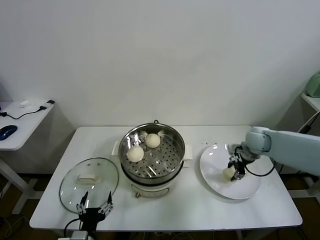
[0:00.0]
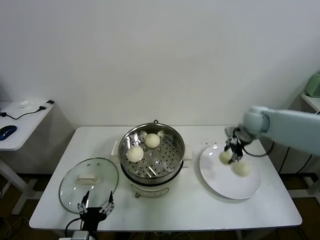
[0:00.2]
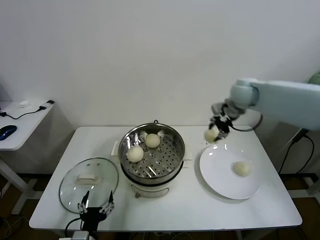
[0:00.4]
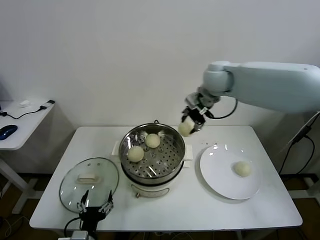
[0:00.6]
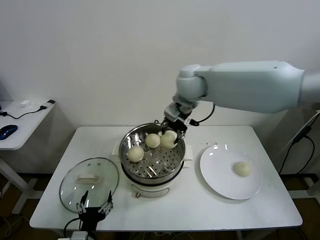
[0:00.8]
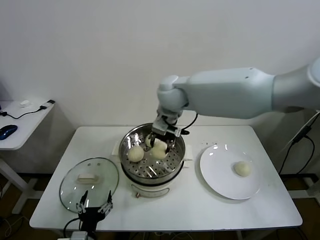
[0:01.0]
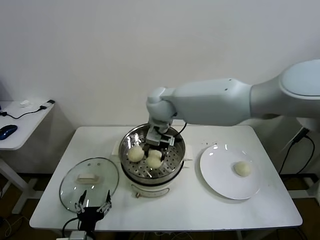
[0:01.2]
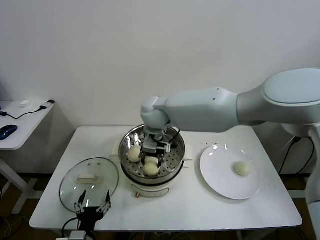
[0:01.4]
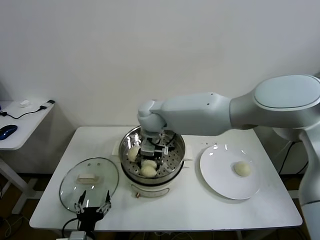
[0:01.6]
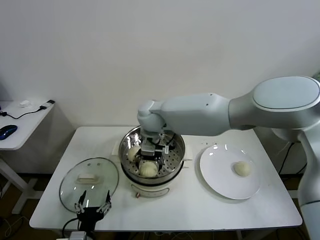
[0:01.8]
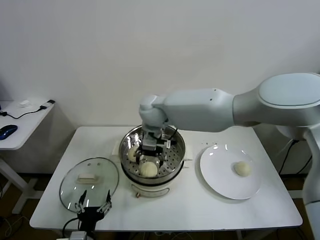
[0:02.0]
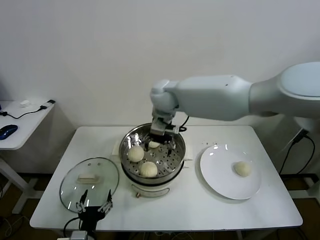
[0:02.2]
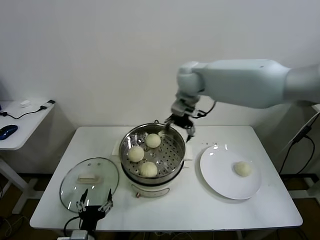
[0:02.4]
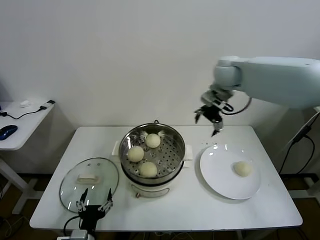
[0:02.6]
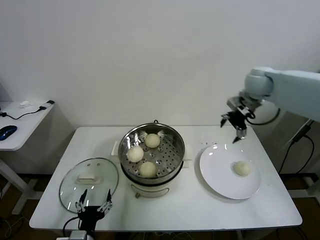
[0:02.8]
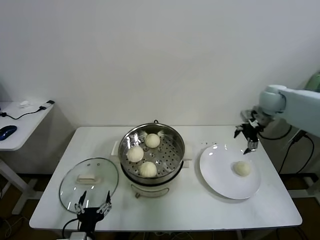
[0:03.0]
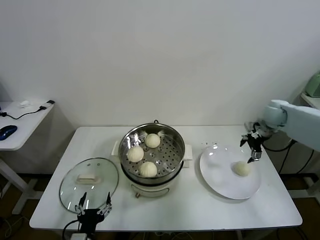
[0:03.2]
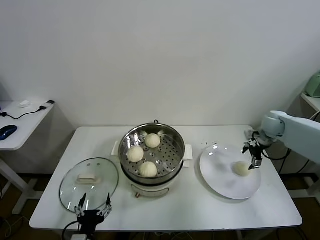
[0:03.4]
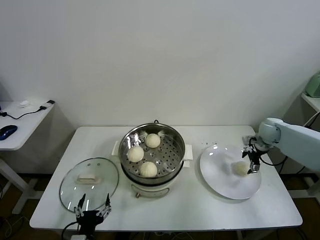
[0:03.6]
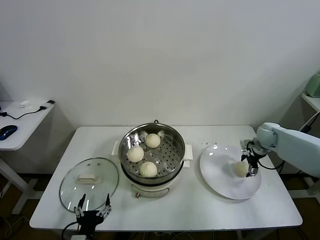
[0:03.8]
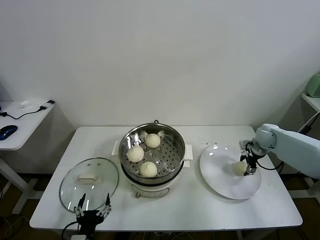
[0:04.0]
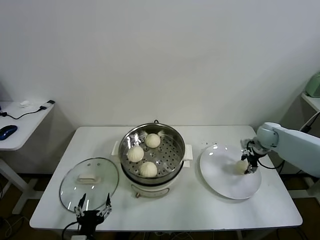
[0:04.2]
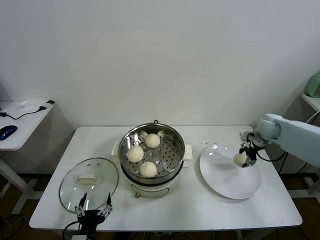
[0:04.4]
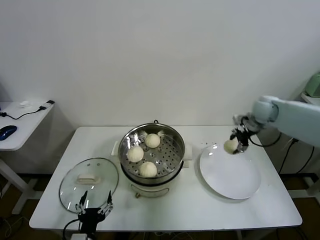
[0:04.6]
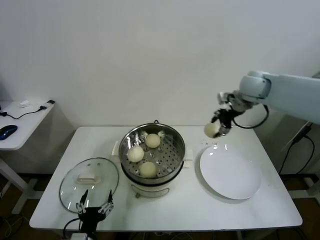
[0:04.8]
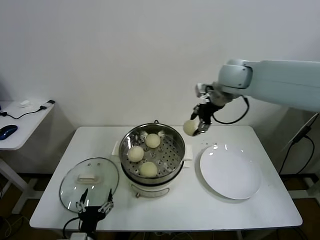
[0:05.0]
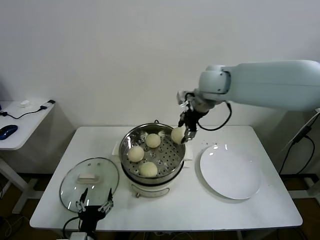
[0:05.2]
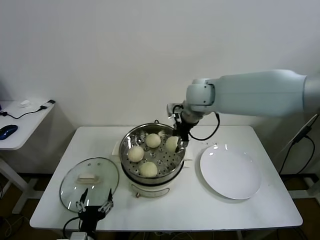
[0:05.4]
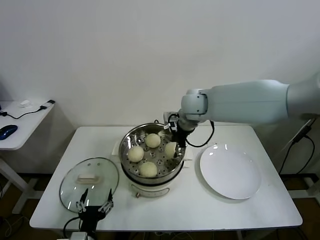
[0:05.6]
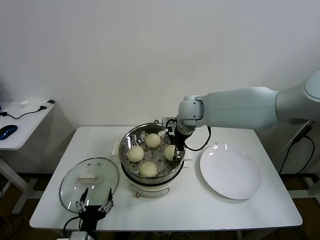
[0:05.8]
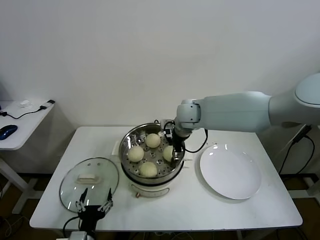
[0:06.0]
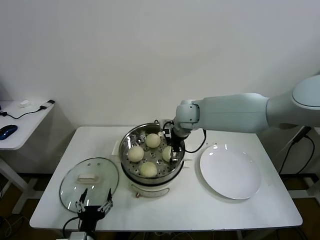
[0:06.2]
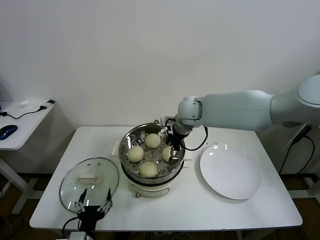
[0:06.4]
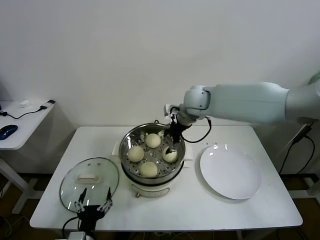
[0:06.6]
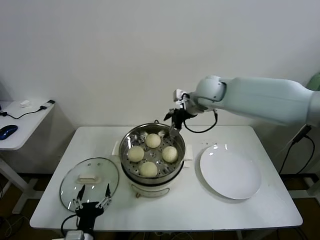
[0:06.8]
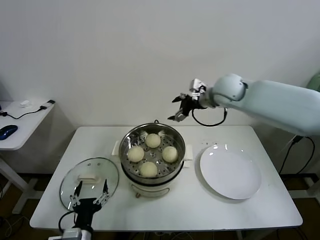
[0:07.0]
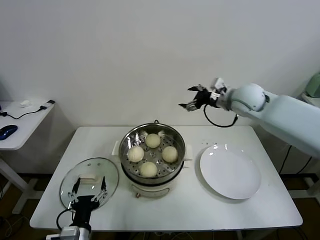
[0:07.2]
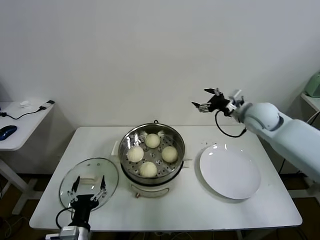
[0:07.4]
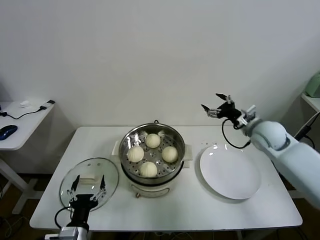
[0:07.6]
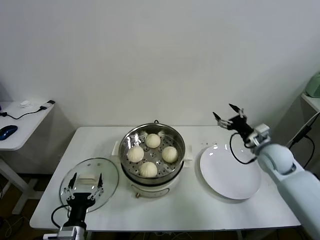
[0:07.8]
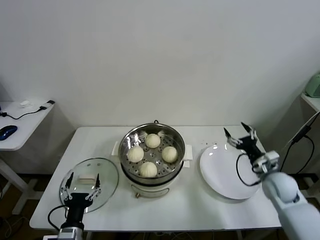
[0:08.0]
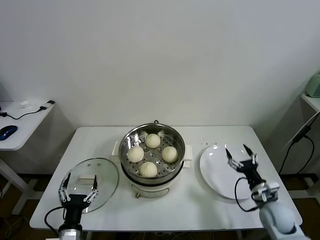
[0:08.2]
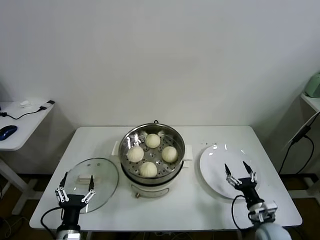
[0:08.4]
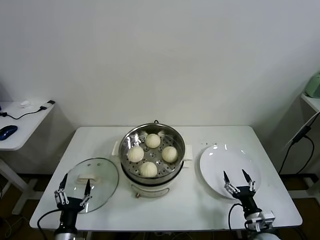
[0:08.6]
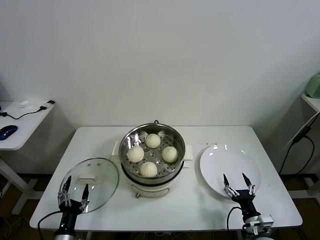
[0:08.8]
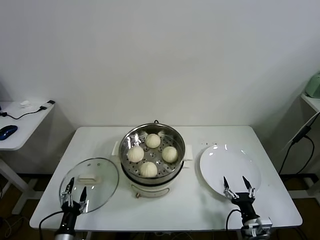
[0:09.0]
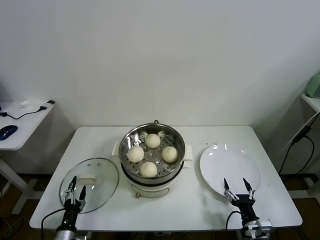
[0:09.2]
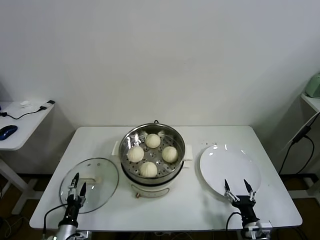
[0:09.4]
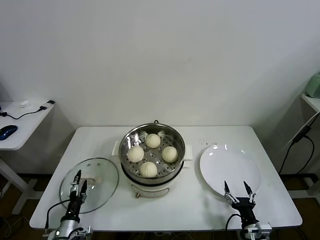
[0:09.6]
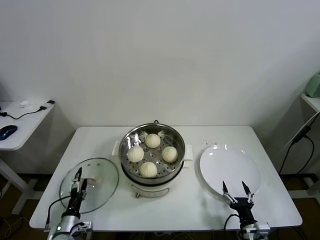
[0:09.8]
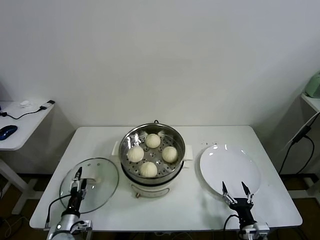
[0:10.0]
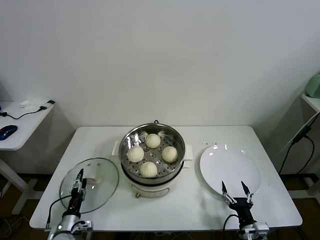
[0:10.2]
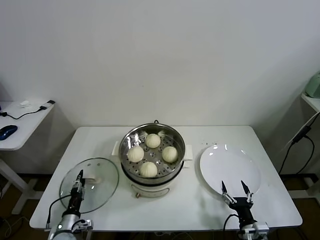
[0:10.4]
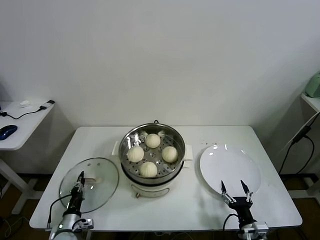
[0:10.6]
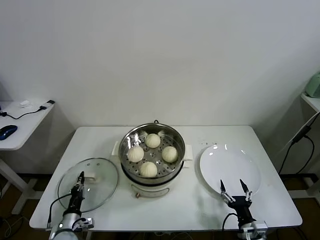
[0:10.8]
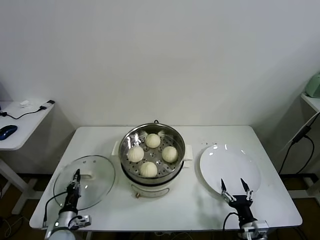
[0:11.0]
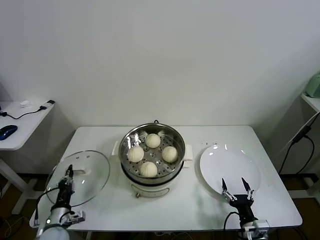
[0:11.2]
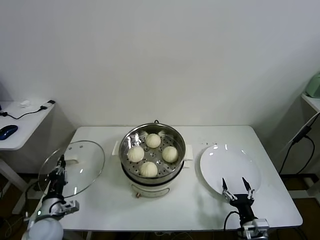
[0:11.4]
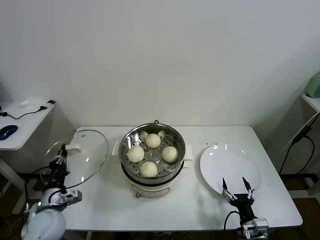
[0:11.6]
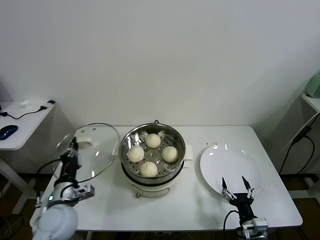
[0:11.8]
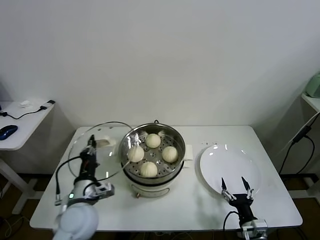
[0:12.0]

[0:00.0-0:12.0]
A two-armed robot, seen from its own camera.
Task of the whole recording: take steamed baozi put them in steamer.
Step, 0:00.0 to 0:01.8: Place the baozi on the steamer with right gripper.
Step, 0:02.0 to 0:04.0: Grasp the baozi in the plate with right gripper.
Step, 0:04.2 to 0:06.2: Place the baozi on the steamer with right gripper.
Step, 0:06.6 to 0:10.6: Grasp the pot lid with left gripper.
0:00.0 to 0:01.6: The right gripper shifts approximately 40 cm to the left.
0:01.6 to 0:03.0: The right gripper shifts some 40 cm to the right, and opens its fingers.
0:03.0 to 0:04.4: The right gripper is displaced downward by about 10 cm, and closes its fingers.
0:04.4 to 0:06.0: The right gripper is displaced to the left by roughly 30 cm.
0:06.0 to 0:07.6: The right gripper is displaced to the right by about 25 cm, and opens.
0:07.6 to 0:09.0: The right gripper shifts some 40 cm backward and downward; the left gripper heads downward and to the left, covering some 15 cm.
0:09.0 to 0:10.4: The left gripper heads forward, covering some 5 cm, and closes.
0:10.4 to 0:12.0: The left gripper goes about 25 cm upward and to the right, and closes its fingers.

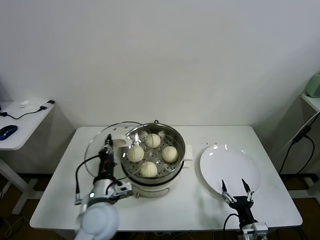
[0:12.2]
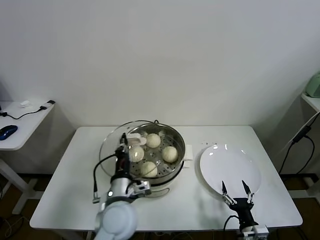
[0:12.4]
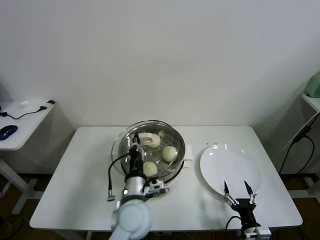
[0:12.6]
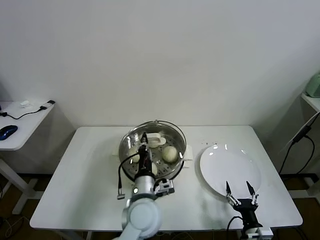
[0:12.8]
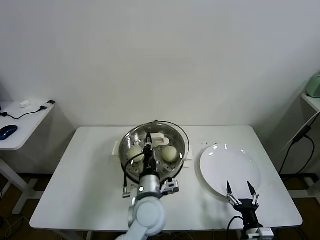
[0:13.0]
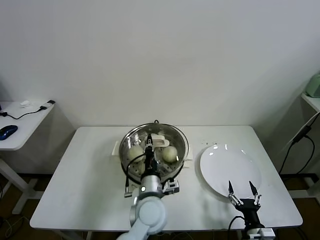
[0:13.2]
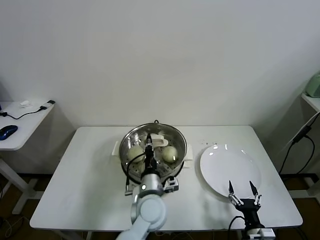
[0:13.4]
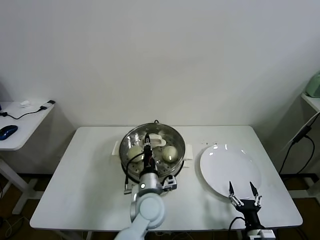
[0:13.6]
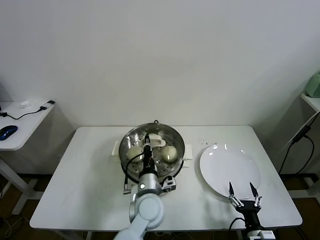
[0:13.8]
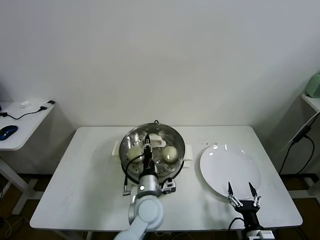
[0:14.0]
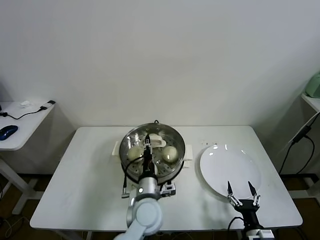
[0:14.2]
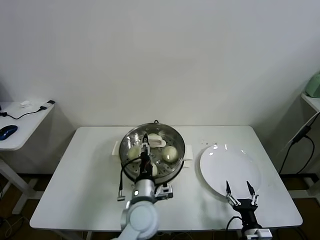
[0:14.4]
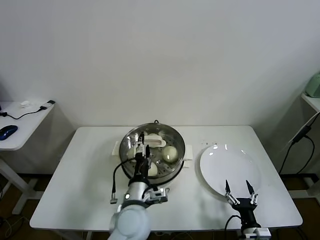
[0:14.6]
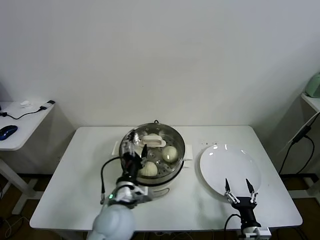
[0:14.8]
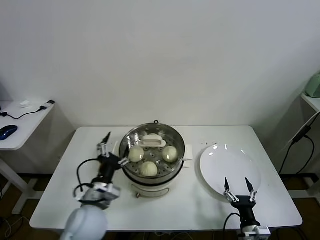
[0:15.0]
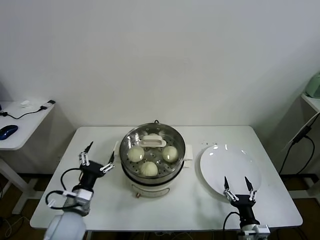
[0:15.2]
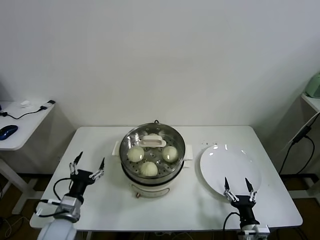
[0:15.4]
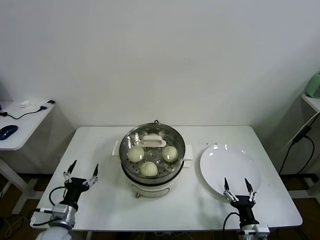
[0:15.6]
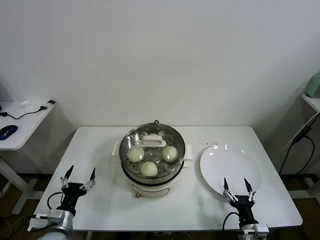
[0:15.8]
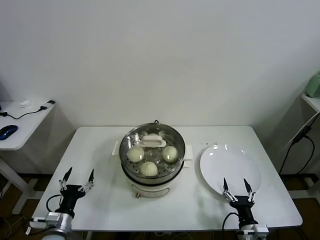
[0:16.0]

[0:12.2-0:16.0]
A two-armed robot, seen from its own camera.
Task of the whole recording: take steamed baozi put them in steamer.
Step, 0:12.2 to 0:14.4: Place the pot lid on the steamer with left gripper.
0:12.2 to 0:13.4: The left gripper is displaced to the right by approximately 15 cm.
0:13.4 to 0:14.8: The left gripper moves to the left, some 5 cm, and opens its fingers.
0:14.8 to 0:16.0: The left gripper heads to the left and downward, covering approximately 30 cm.
